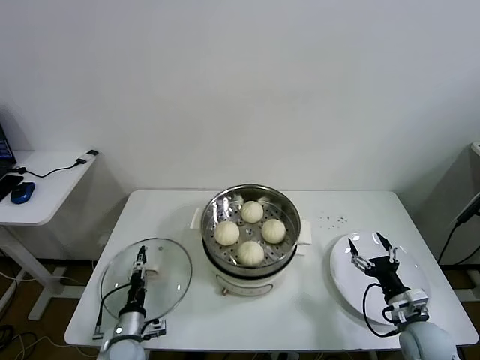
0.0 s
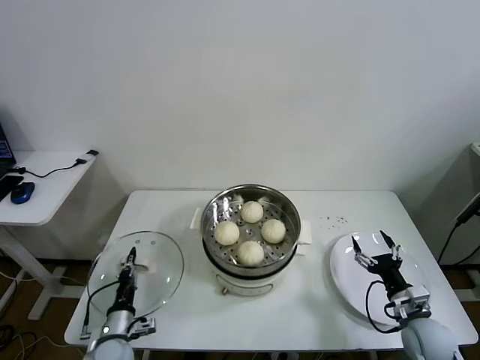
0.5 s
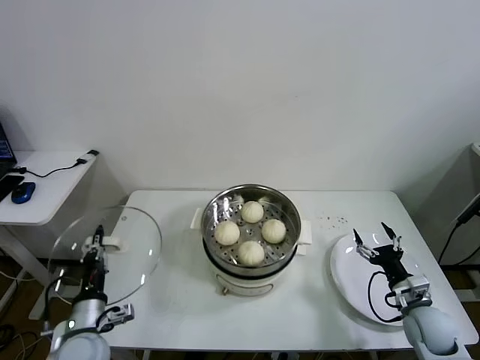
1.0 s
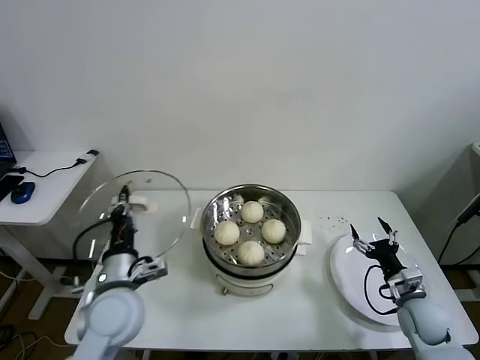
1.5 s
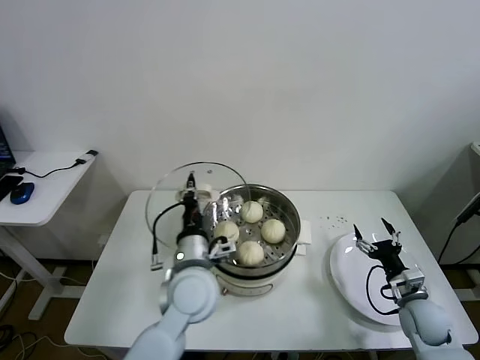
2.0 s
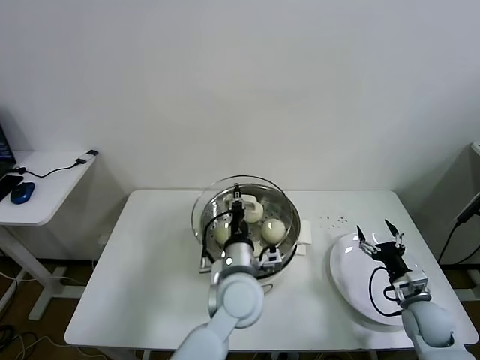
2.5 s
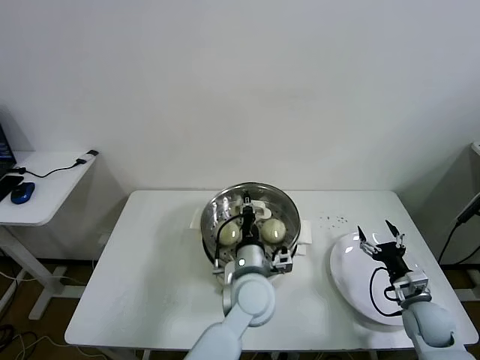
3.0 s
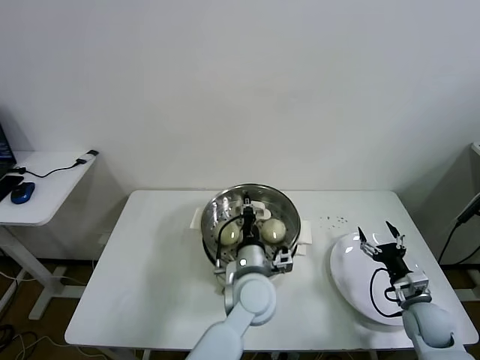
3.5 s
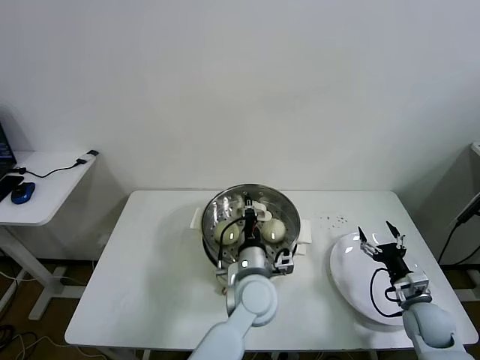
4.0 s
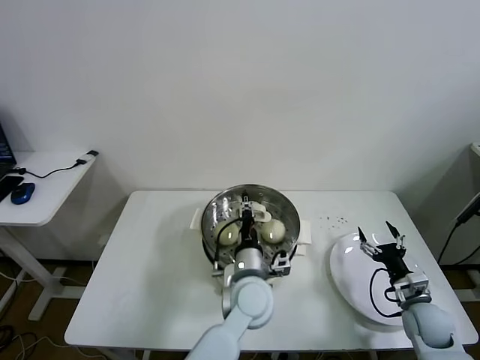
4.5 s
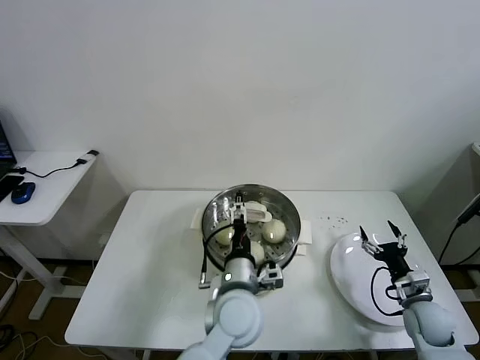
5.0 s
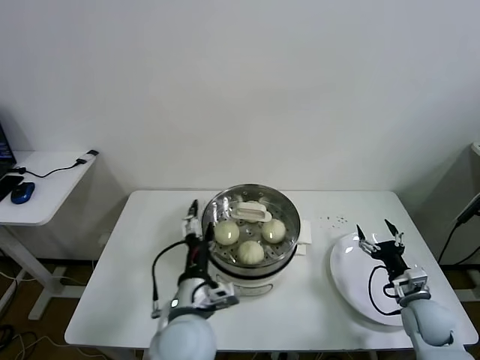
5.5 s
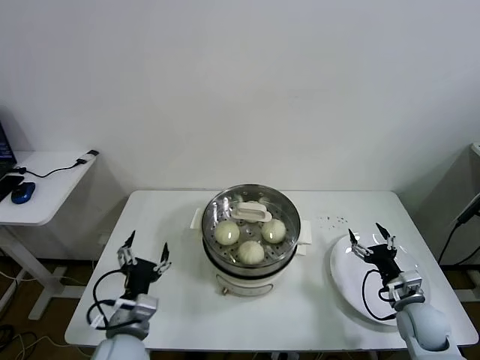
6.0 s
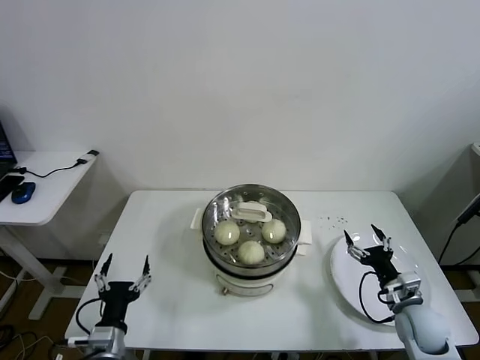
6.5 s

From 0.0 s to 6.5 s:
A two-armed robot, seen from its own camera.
Task of the whole recording: take steamed baozi put them in steamer.
Step, from 0.5 s to 5.0 s: Place the pot lid on the steamer with left gripper.
From 0.0 s to 2.0 s: The right gripper moves roughly 5 cm. The left gripper travels upward and to the right by roughly 30 cm, and closes up.
From 2.0 s to 4.5 s: The left gripper heads to the right and downward, covering approximately 15 cm.
From 4.5 s to 6.5 s: The left gripper shifts about 30 cm to the left and backward, and opens.

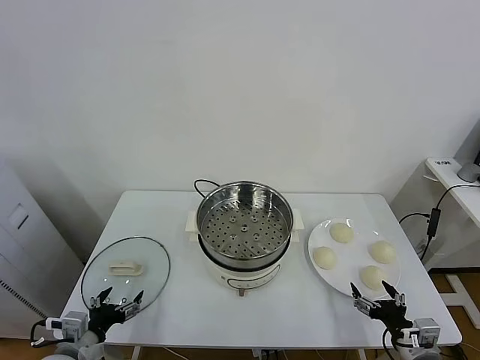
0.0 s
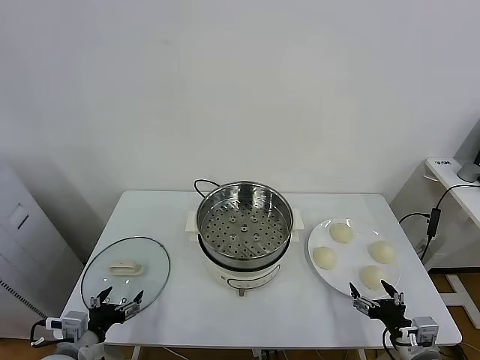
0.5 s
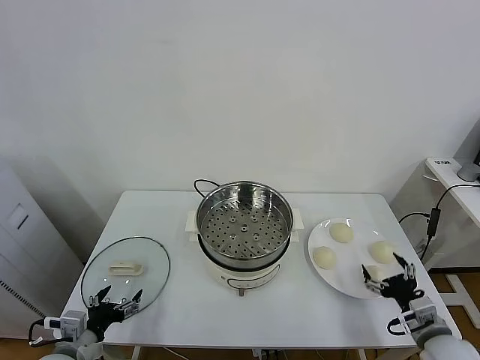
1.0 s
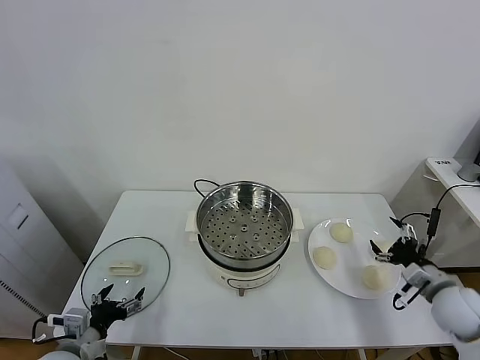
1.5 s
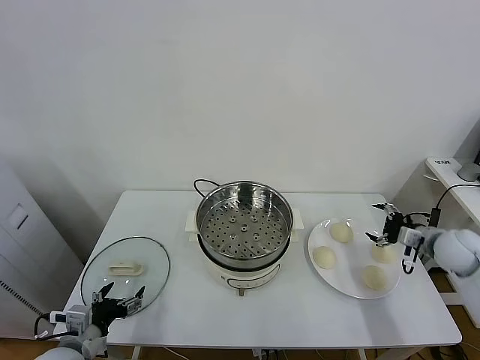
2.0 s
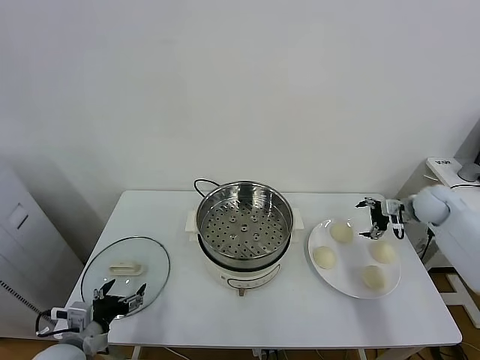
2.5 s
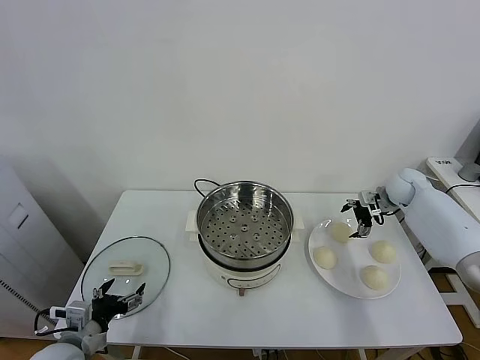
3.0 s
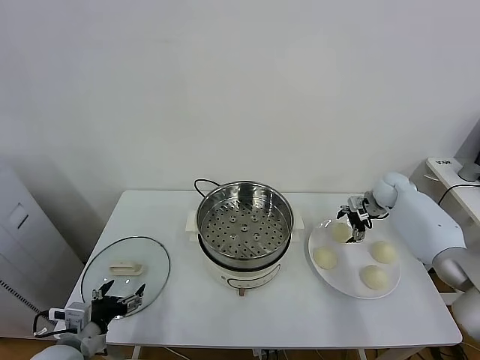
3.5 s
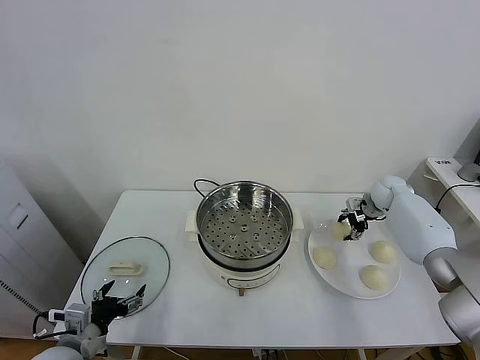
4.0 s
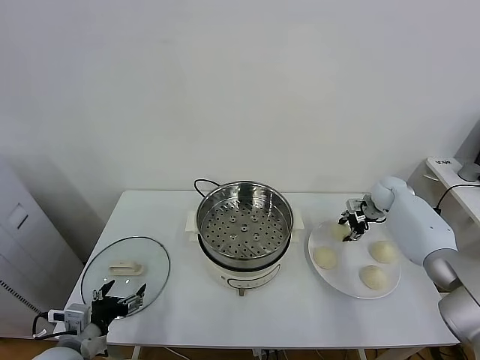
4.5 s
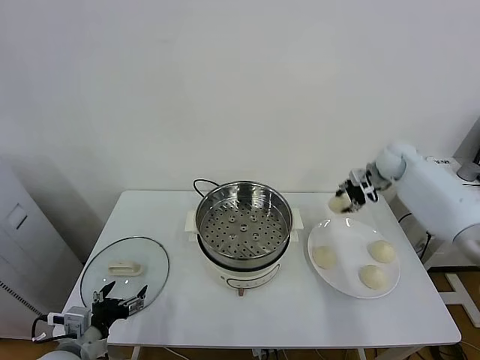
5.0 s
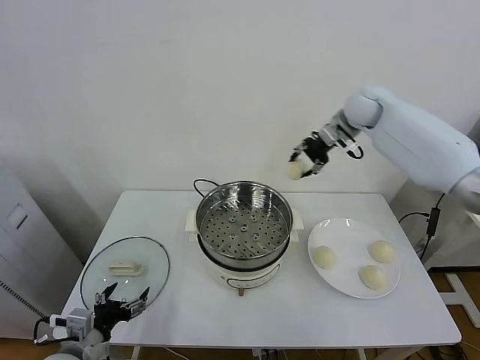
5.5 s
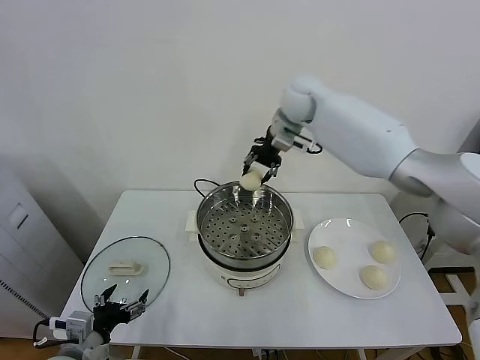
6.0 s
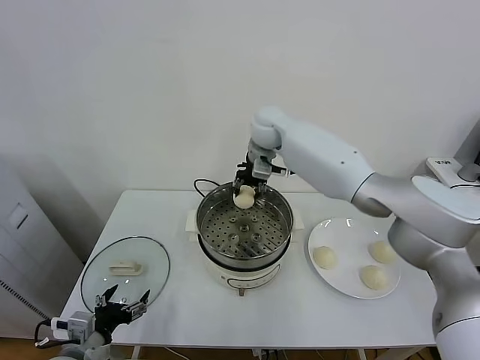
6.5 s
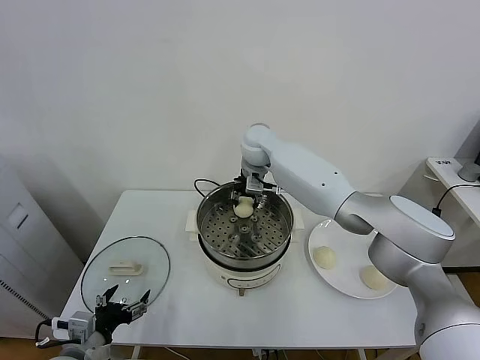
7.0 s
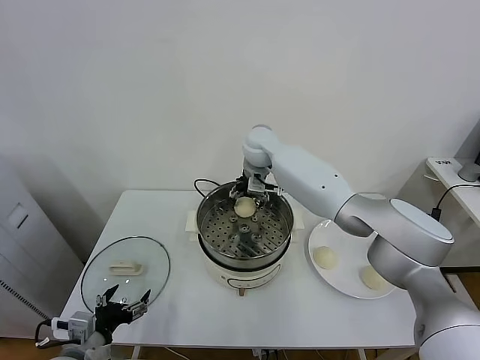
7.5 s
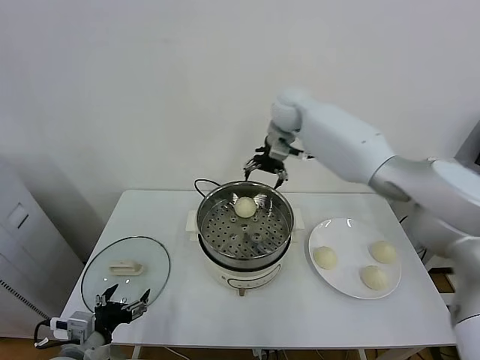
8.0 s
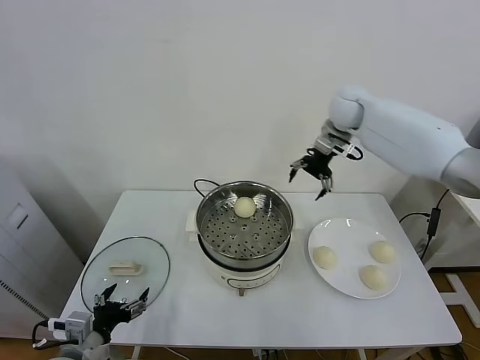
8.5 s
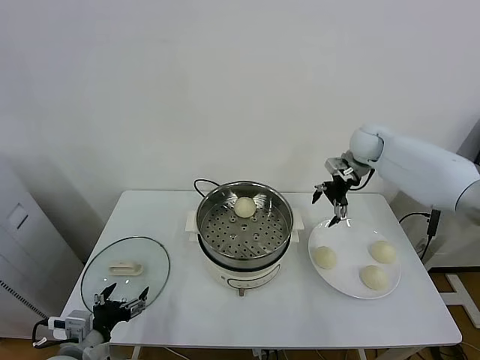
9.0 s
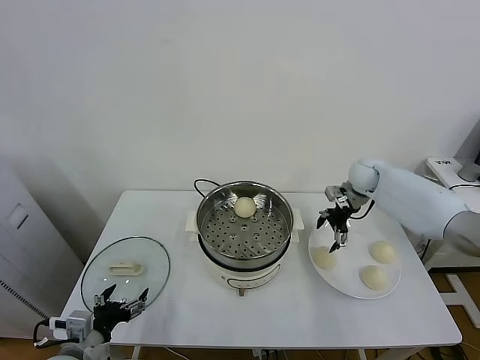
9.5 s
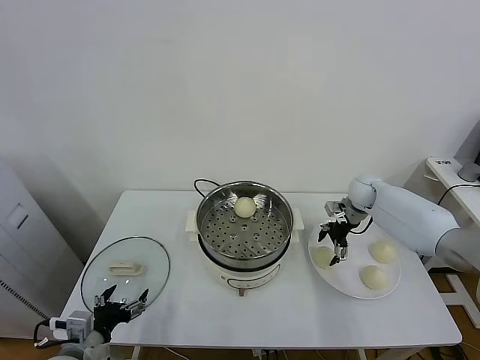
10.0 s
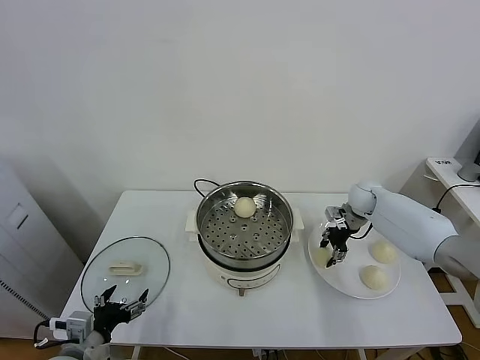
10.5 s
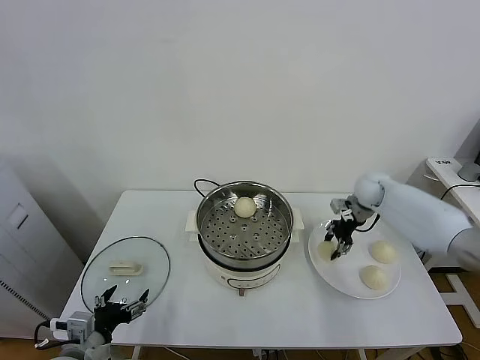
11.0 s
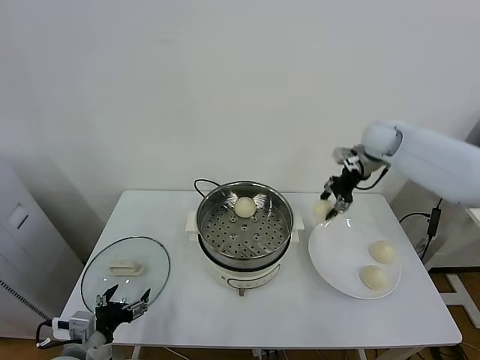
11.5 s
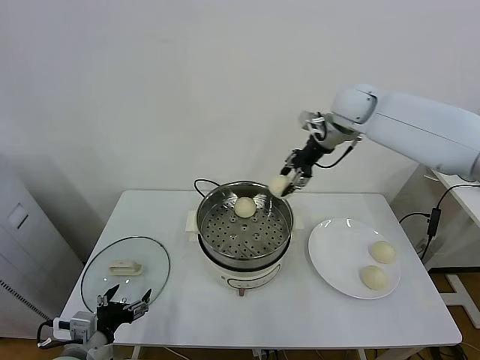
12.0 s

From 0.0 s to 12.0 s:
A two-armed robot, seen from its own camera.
Task of the whole recording: take steamed baozi put them in steamer.
Step, from 0.0 s to 3.5 s: Grasp the baozi in the plate with right gripper.
Step, from 4.5 s to 7.5 s: Place the baozi on the steamer with right gripper.
Step, from 8.0 s to 10.5 s: Grasp the baozi in the plate with right gripper.
From 2.0 s to 4.0 s: The right gripper heads forward, covering some 15 cm, and closes.
From 4.0 s to 6.0 s: The right gripper is displaced to the left and upward by approximately 40 cm.
From 6.0 s to 8.0 s: The right gripper travels downward and back again, some 10 cm each way, and opens.
From 8.0 s to 10.0 s: The right gripper travels downward and to the right by roughly 30 cm.
From 10.0 s to 12.0 s: The right gripper goes approximately 30 cm upward and to the left, and closes its fingers.

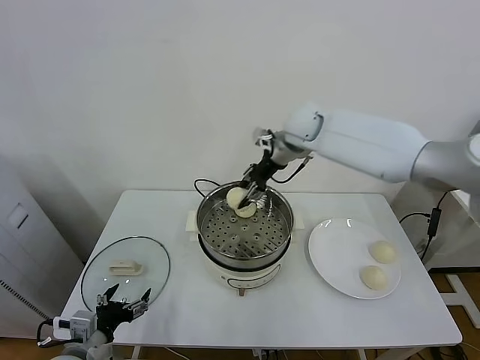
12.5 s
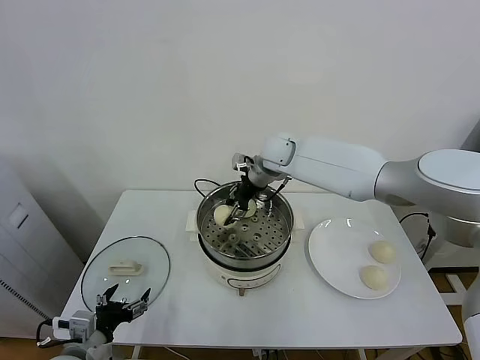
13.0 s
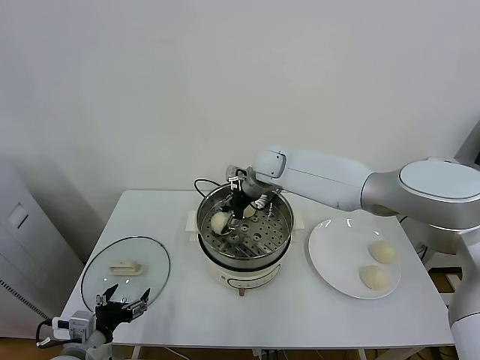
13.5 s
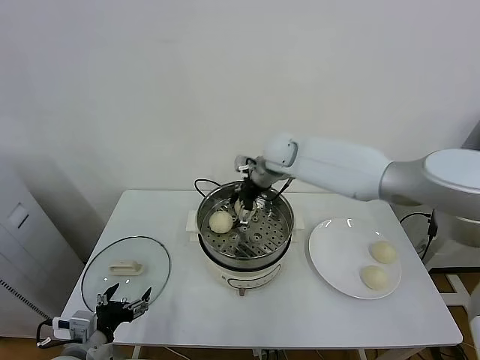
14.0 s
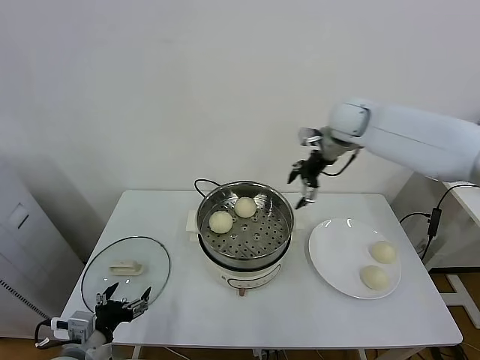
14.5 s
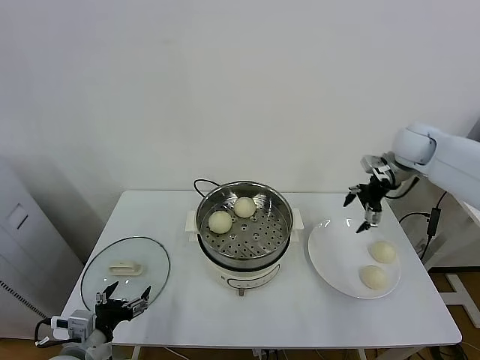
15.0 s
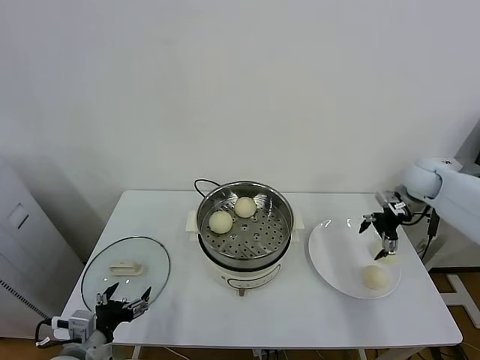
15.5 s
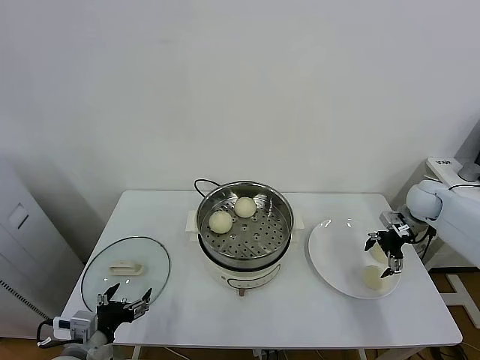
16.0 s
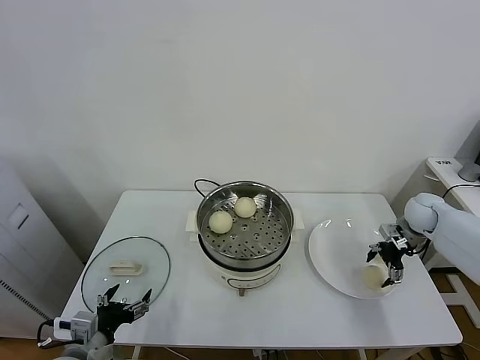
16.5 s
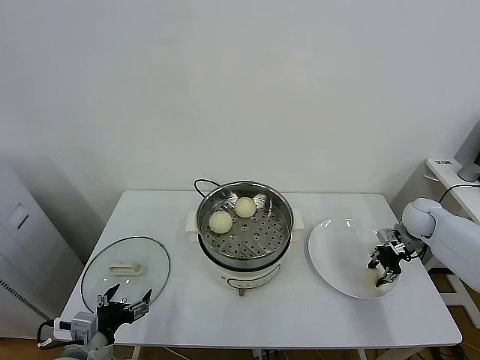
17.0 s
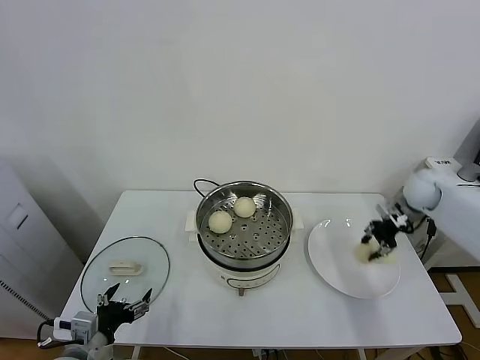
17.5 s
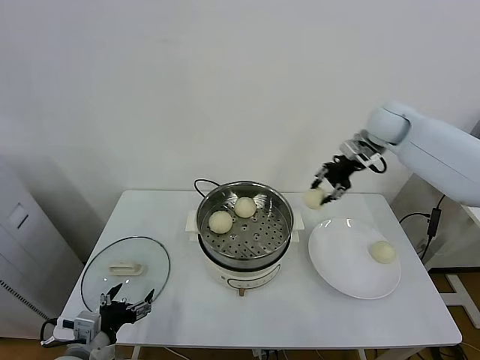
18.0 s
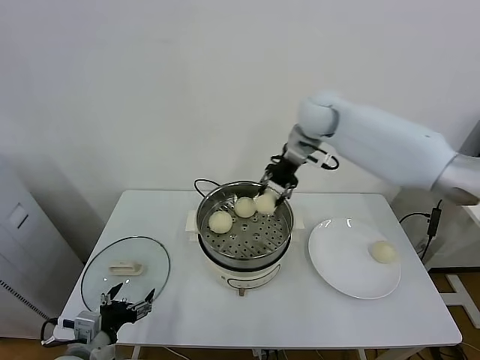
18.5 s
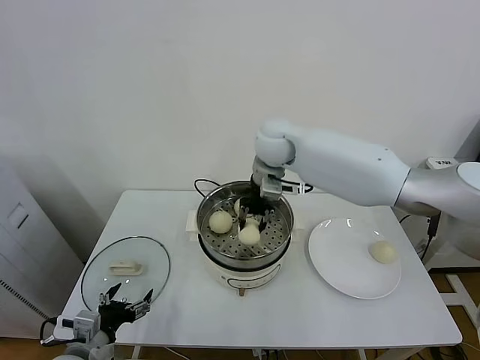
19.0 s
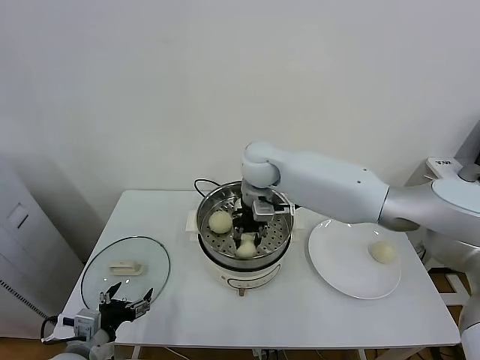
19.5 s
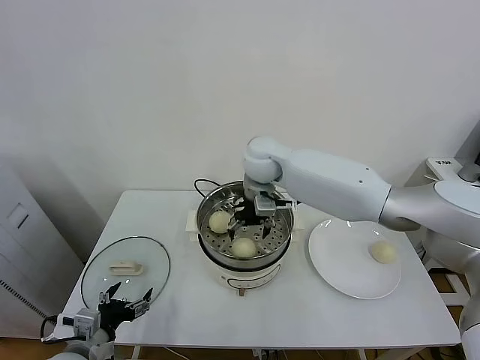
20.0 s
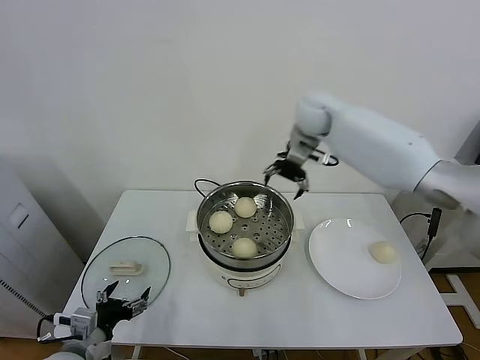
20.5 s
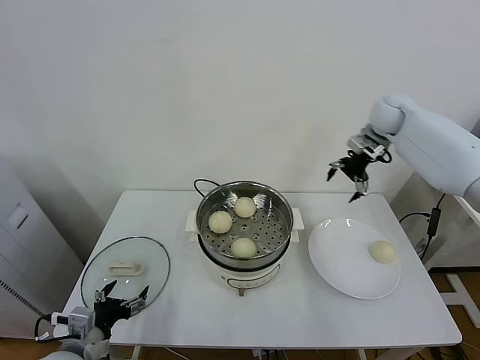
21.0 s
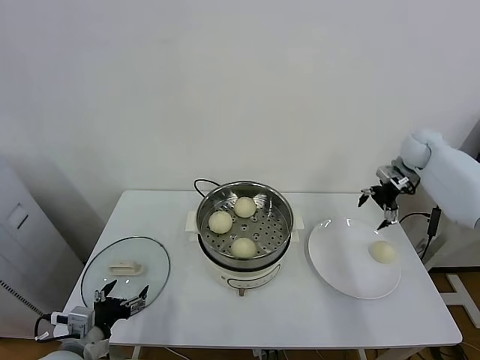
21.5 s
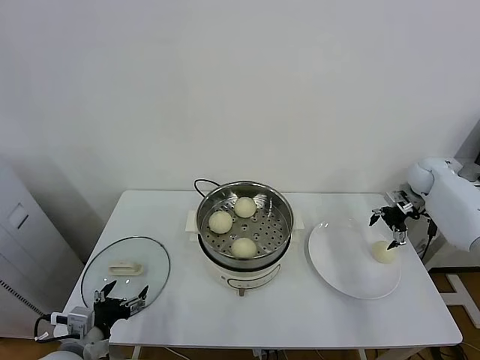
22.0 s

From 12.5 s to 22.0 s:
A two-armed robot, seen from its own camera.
Task of the whole recording: take steamed baozi put them in steamer.
Step, from 14.0 s to 16.5 s: Grasp the baozi in the plate with right gripper.
Step, from 17.5 s to 20.0 s: Place the baozi on the steamer with right gripper.
From 12.5 s to 14.5 s: The right gripper is displaced to the right by approximately 15 cm, and opens its fingers.
From 14.5 s to 16.5 s: The right gripper heads downward and to the right, covering roughly 30 cm.
From 16.5 s to 18.0 s: The right gripper travels upward and to the left by about 30 cm, and closes up.
From 18.0 s to 20.0 s: The right gripper shifts about 25 cm to the left, and opens.
From 20.0 s to 22.0 s: The right gripper goes some 40 cm to the right.
